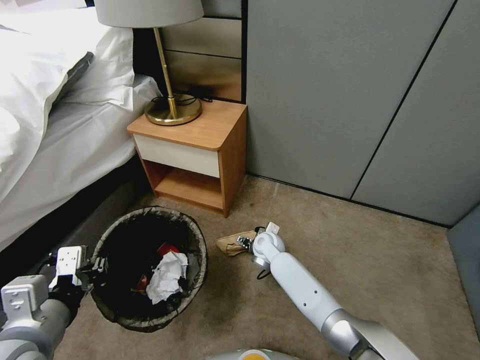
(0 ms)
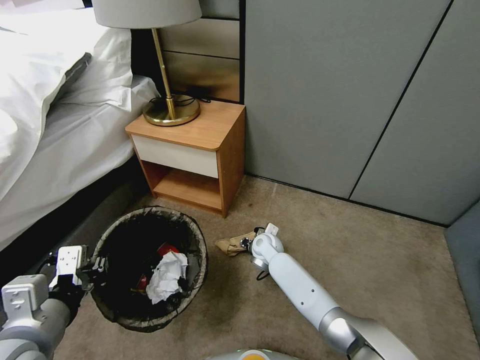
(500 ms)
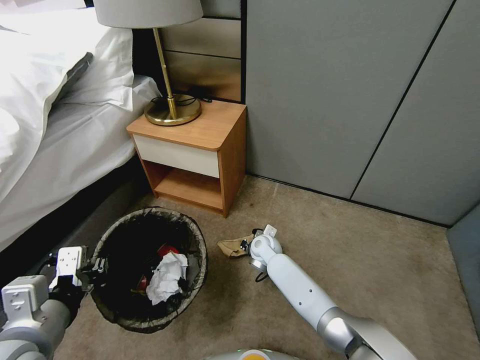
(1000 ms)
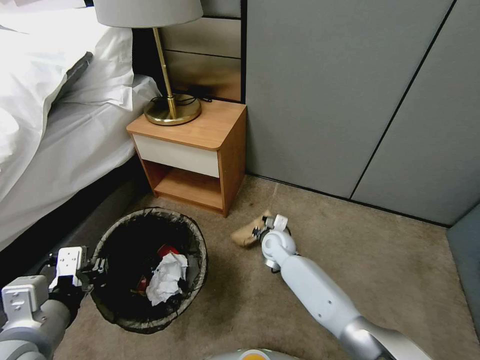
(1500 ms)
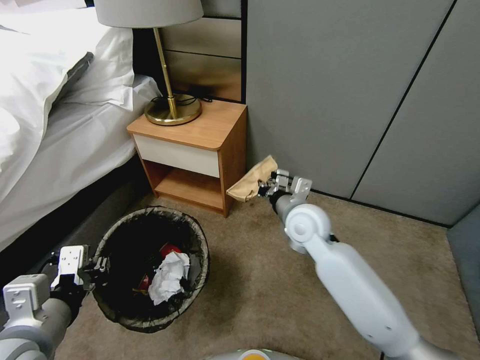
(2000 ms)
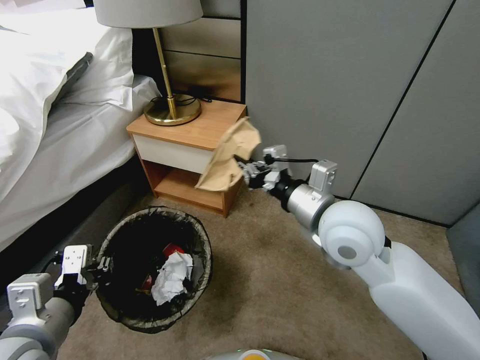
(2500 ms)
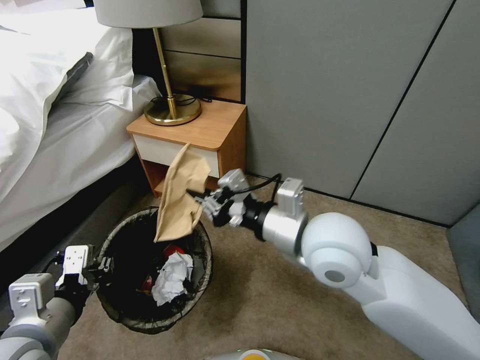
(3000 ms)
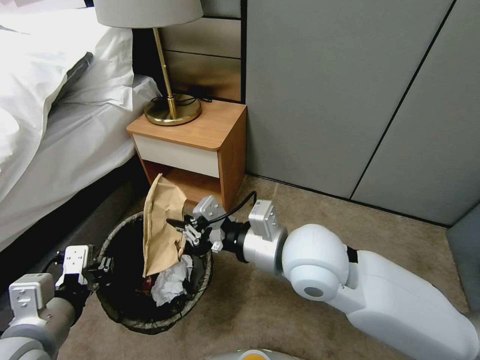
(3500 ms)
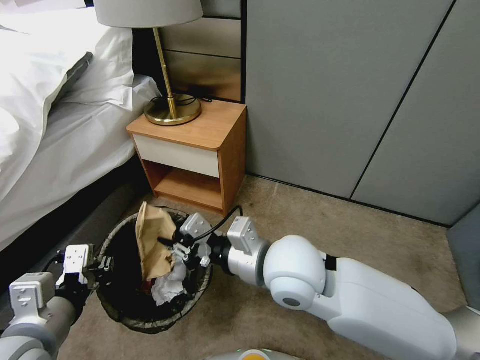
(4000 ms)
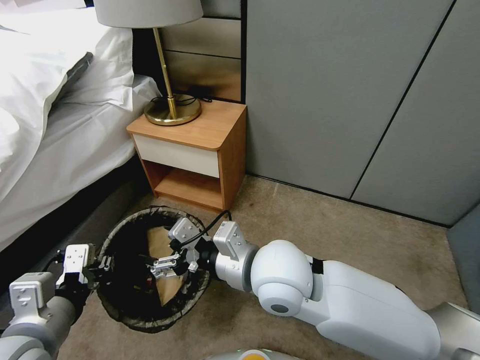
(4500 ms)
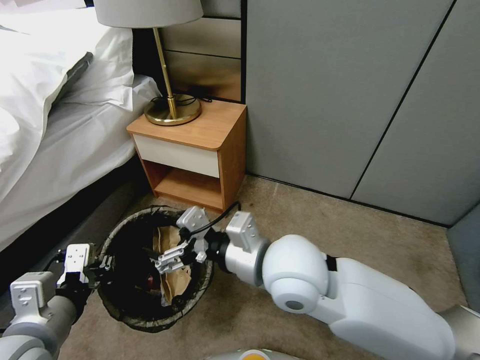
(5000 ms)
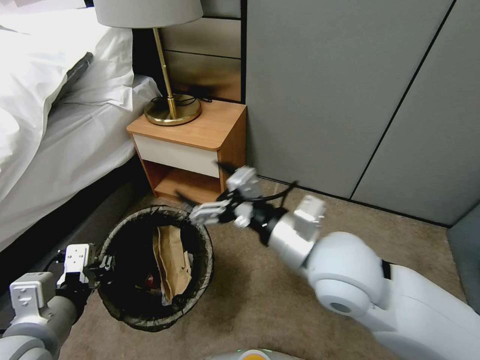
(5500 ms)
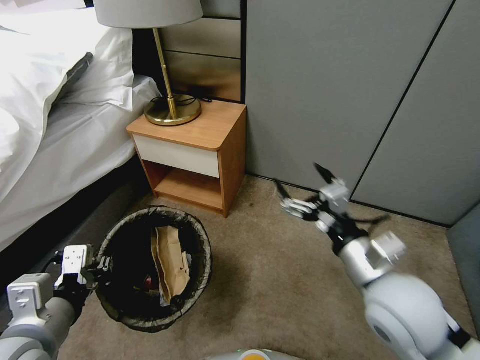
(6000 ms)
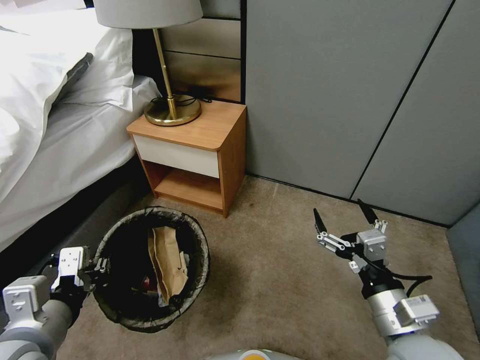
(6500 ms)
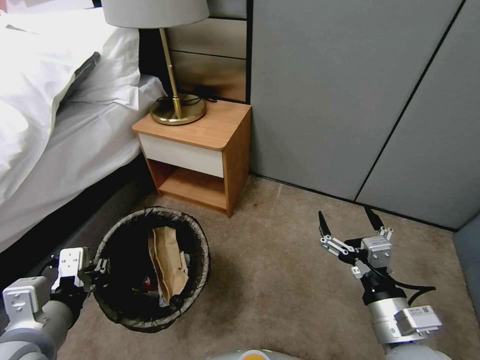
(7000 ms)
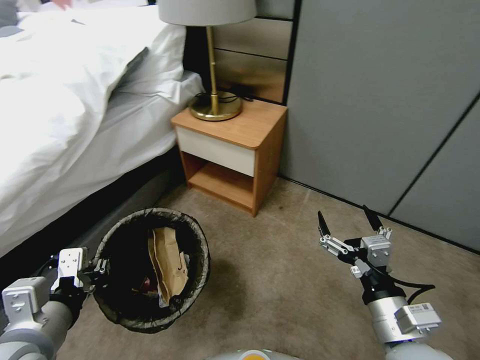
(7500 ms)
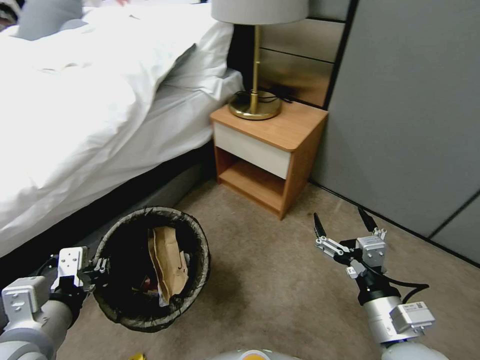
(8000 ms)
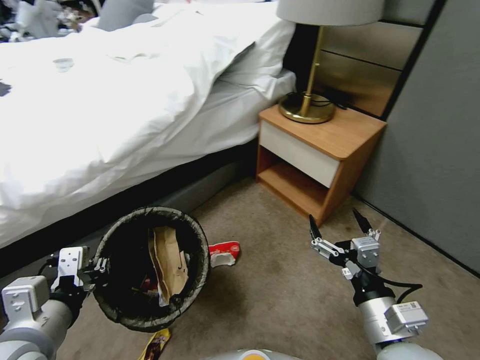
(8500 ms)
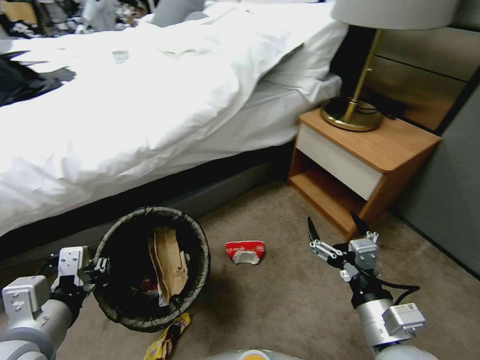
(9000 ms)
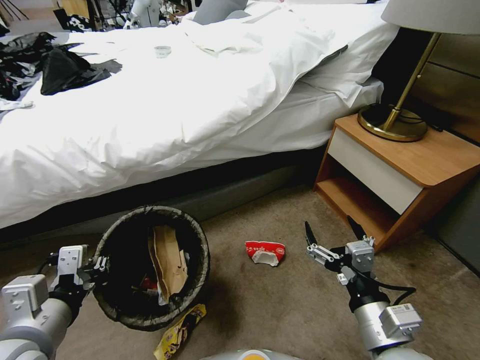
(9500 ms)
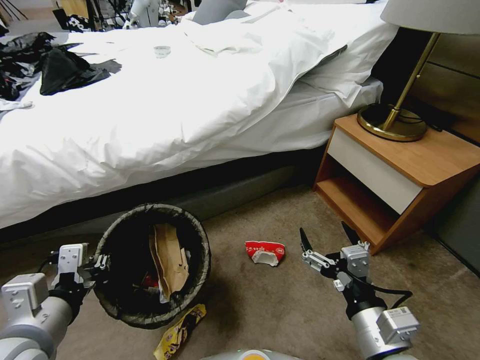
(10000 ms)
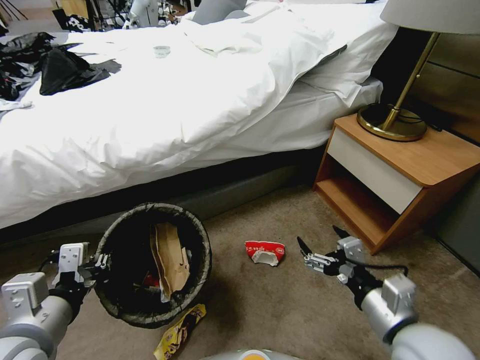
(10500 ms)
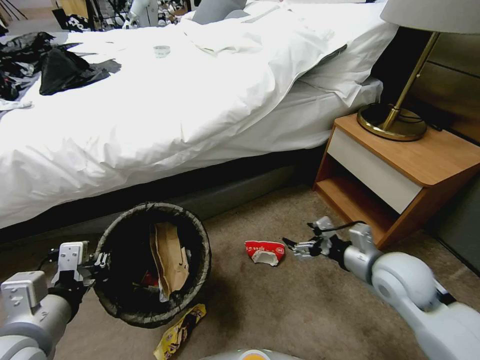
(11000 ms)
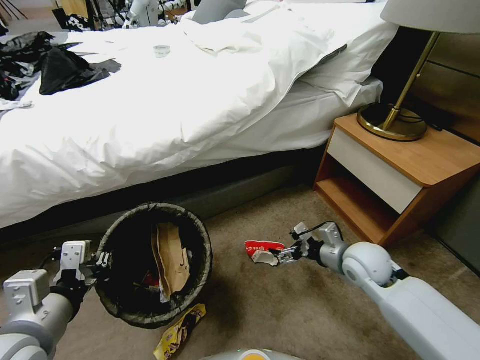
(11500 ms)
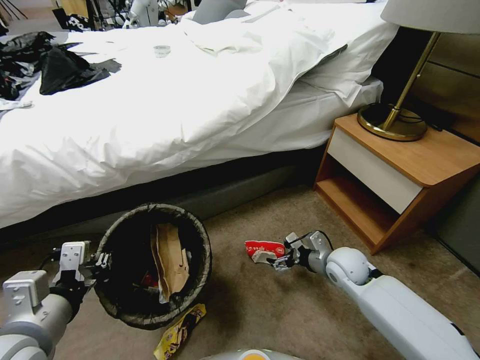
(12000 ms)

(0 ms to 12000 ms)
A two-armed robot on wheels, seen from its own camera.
Task of the whole recording: Pick up the trash bin, then pick up the garbage from the floor and place it into the trash bin.
0 ms - 2000 ms: The right gripper shifts about 20 cm upward, and closes up.
2000 ms - 4000 ms: The right gripper travels backward, upward and to the left by about 20 cm.
4000 ms - 6000 ms: The right gripper goes some 15 cm to the right, and opens up.
6000 ms - 8000 ms: The right gripper moves backward and downward, approximately 10 cm.
10000 ms - 12000 ms: The right gripper shifts approximately 25 cm forward and downward.

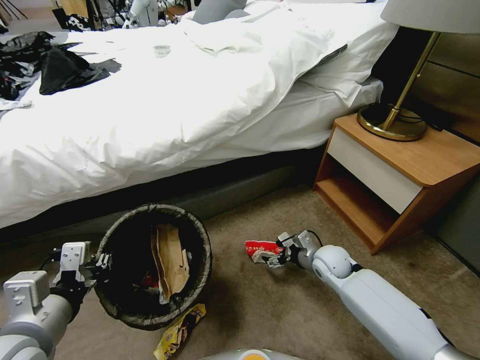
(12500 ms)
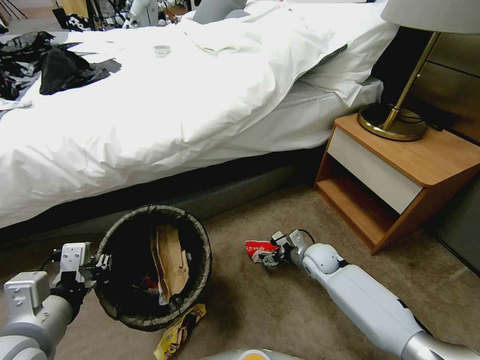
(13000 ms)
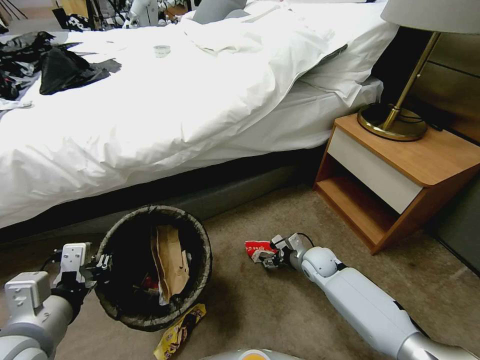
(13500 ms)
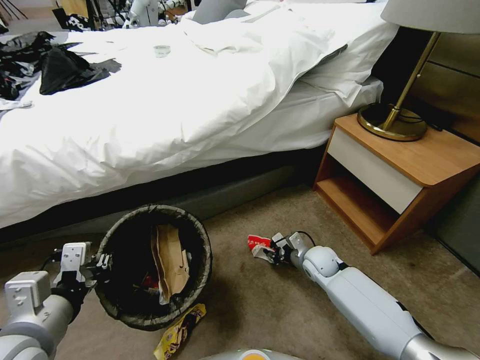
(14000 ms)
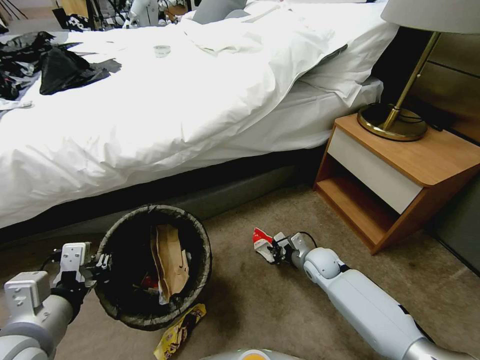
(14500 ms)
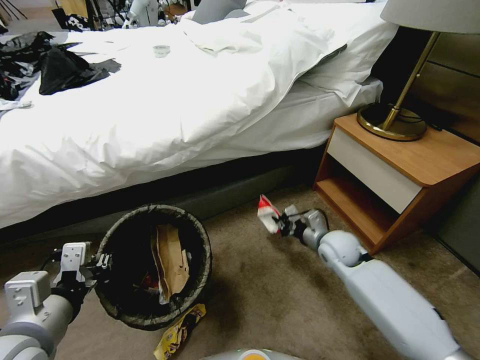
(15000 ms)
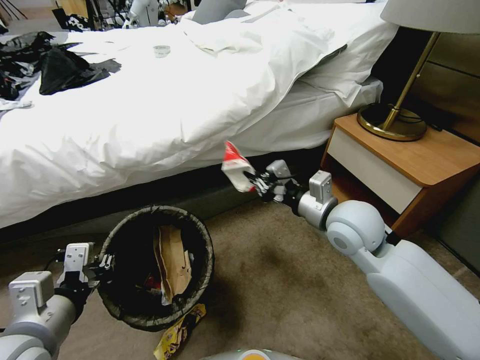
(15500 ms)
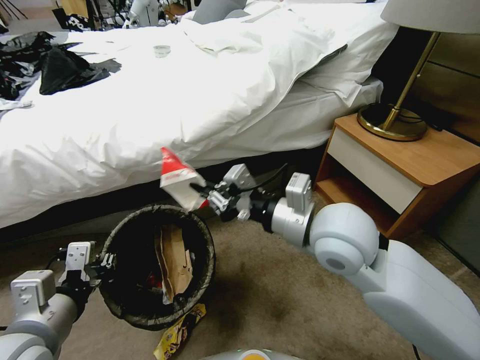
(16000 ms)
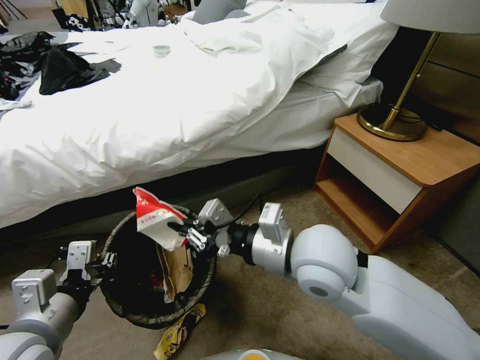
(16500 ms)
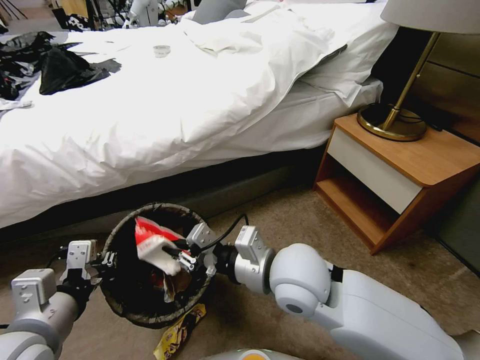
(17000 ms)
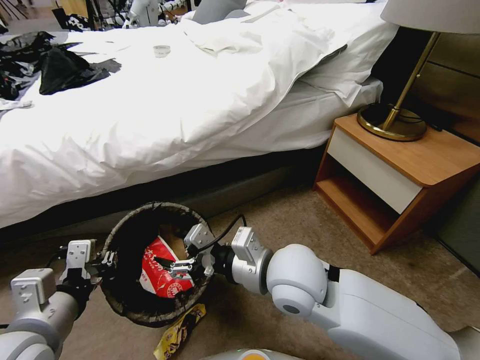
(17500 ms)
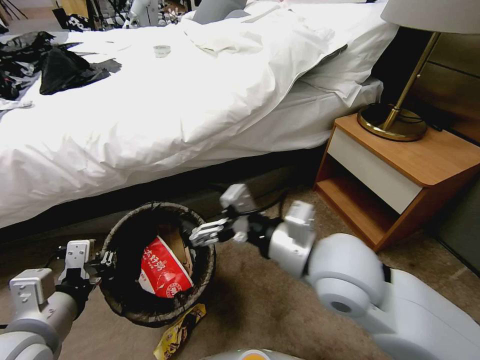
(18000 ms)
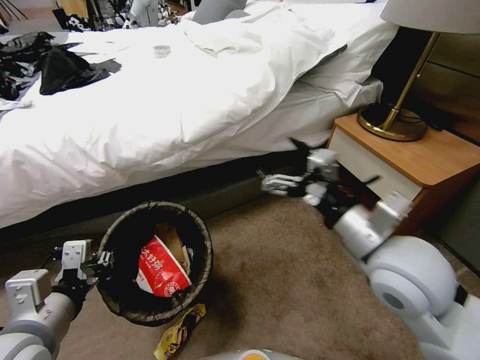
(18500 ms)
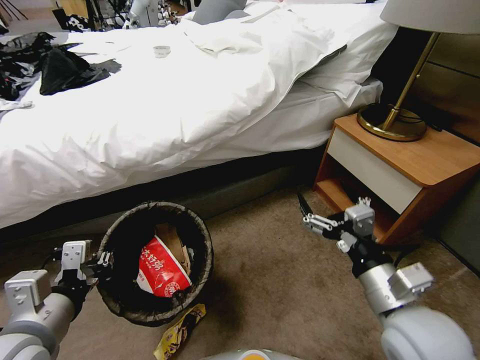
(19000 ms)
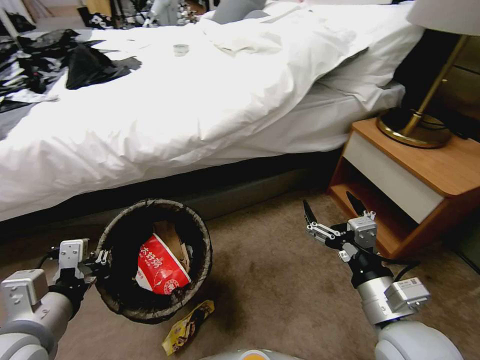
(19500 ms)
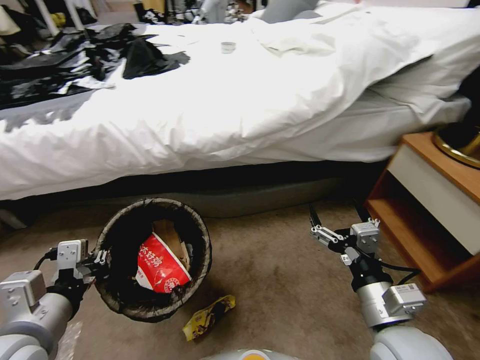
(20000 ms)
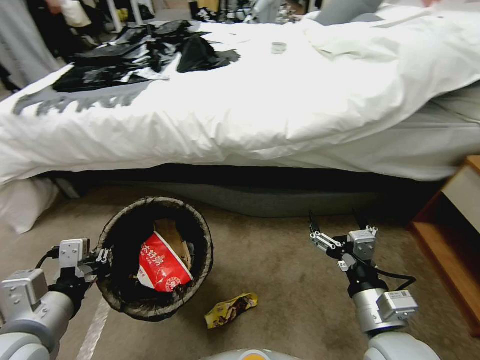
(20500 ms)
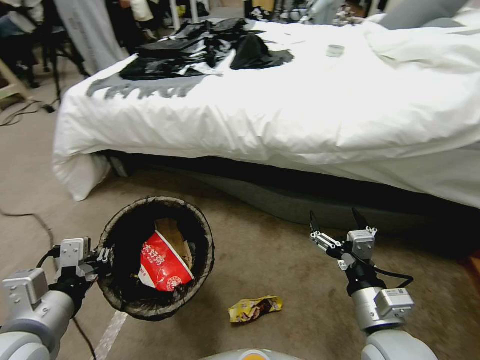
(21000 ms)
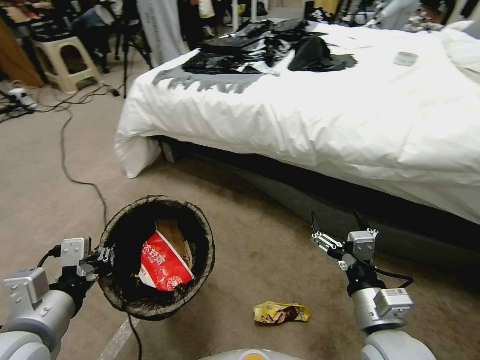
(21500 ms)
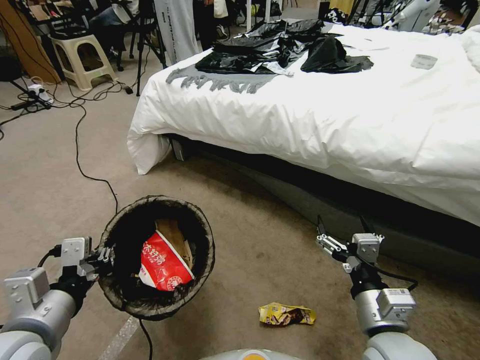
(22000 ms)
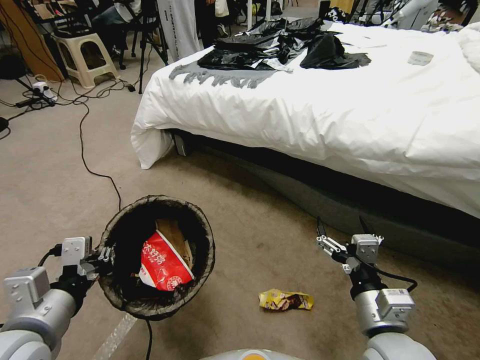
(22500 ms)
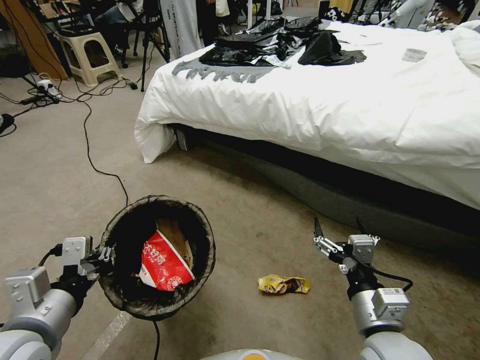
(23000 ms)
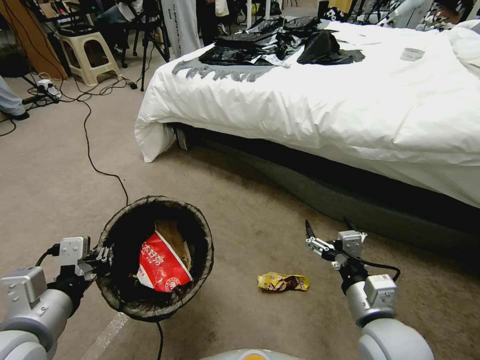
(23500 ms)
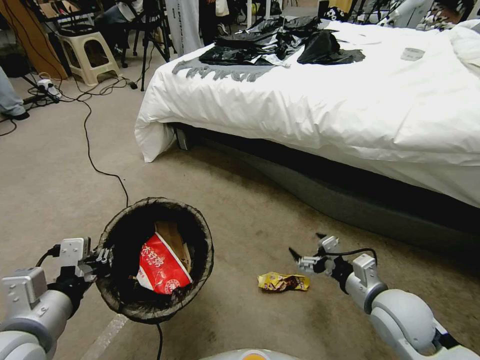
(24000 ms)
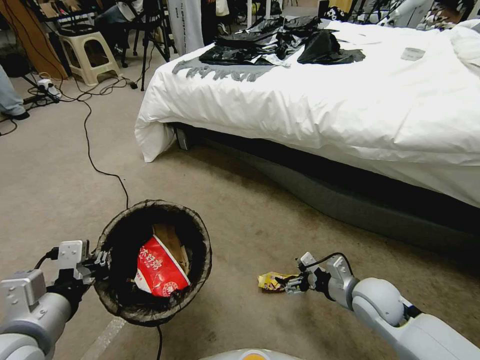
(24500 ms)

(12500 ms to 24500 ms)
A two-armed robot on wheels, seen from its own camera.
Task of the whole recording: Pick up the trash bin, then pick up the garbage from the floor and place it into the trash bin.
12500 ms - 14500 ms: The right gripper closes its fingers.
14500 ms - 16500 ms: The right gripper heads upward, covering about 30 cm.
16500 ms - 18500 ms: The right gripper shifts roughly 10 cm to the right, and opens.
18500 ms - 20500 ms: The right gripper travels downward and backward by about 15 cm.
22500 ms - 24500 ms: The right gripper shifts some 15 cm forward, downward and to the right.

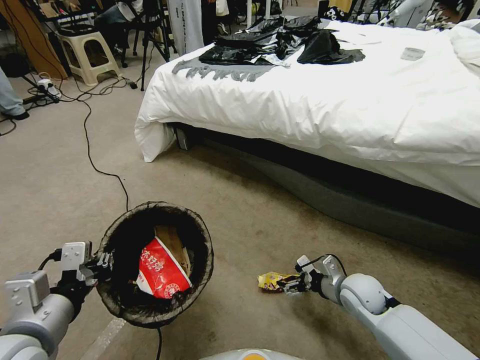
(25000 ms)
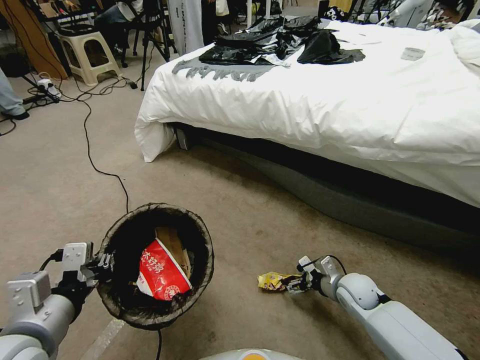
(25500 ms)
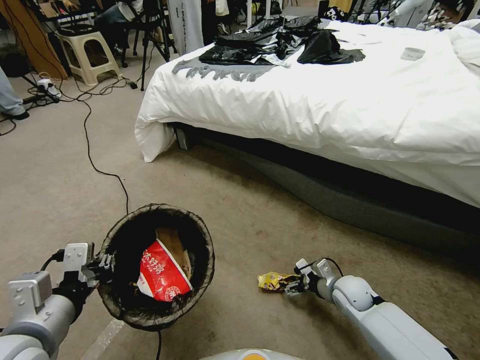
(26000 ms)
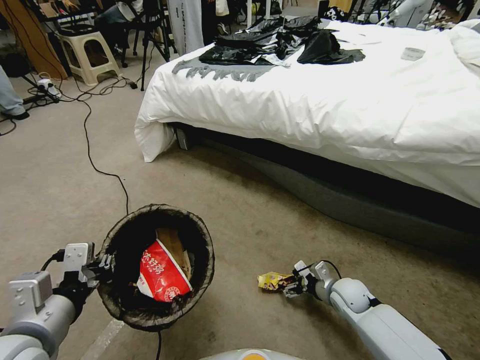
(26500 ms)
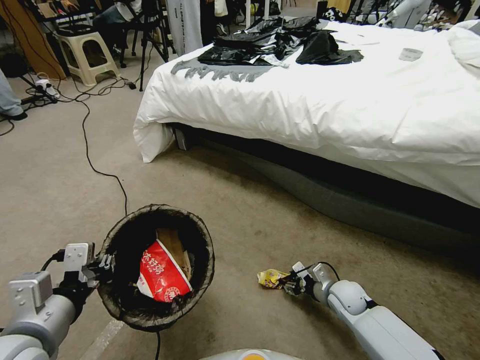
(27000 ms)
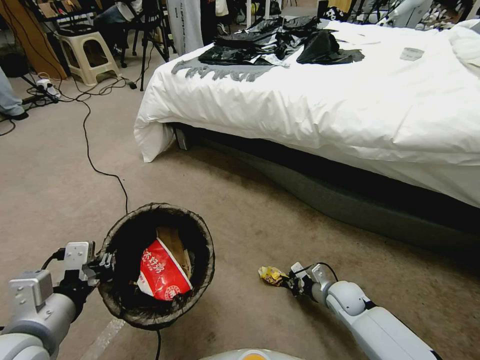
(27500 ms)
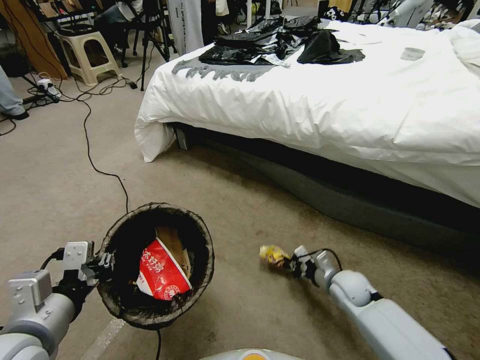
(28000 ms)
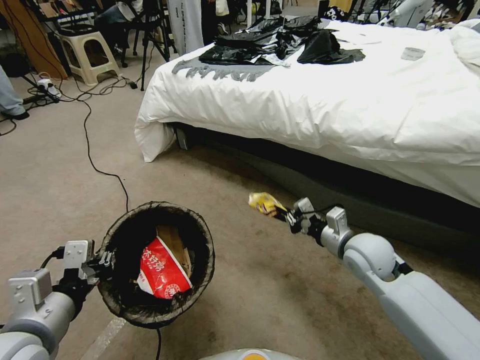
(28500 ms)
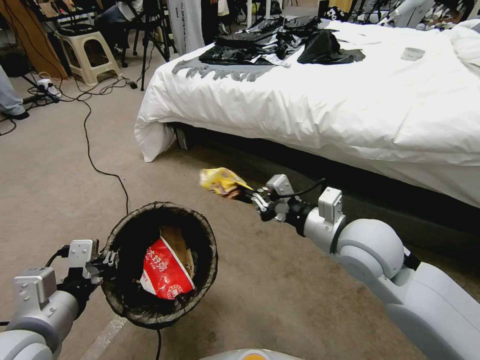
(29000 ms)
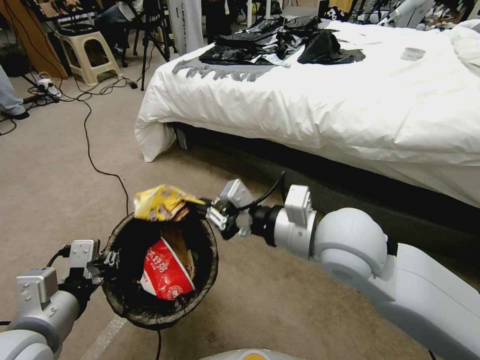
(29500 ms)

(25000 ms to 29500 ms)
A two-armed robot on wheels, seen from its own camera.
Task of the whole recording: Pick up the trash bin, then pick up the garbage from the floor and place it into the trash bin.
25000 ms - 27000 ms: The right gripper heads downward, covering about 10 cm, and closes up.
27000 ms - 29500 ms: The right gripper shifts some 40 cm upward, and closes.
